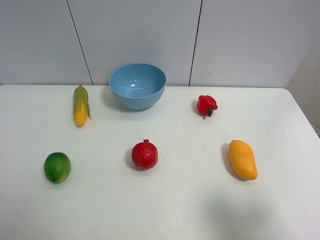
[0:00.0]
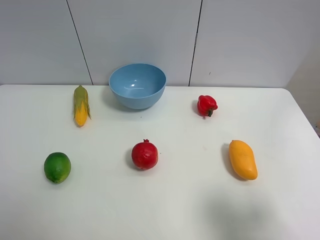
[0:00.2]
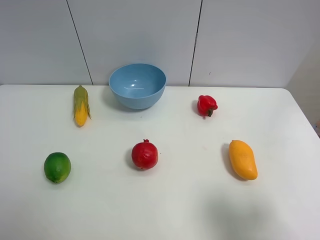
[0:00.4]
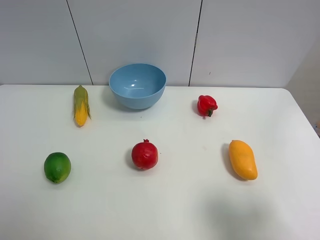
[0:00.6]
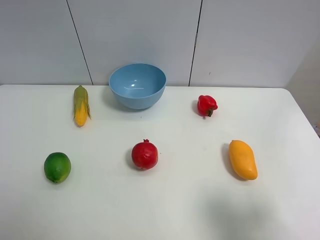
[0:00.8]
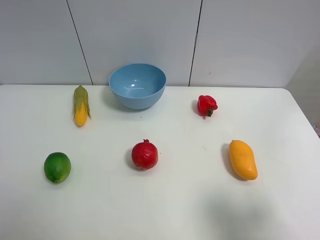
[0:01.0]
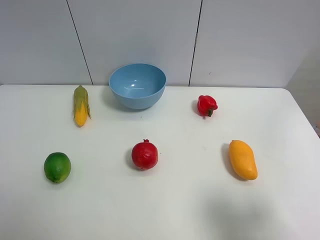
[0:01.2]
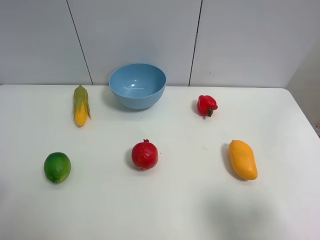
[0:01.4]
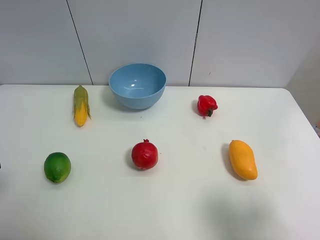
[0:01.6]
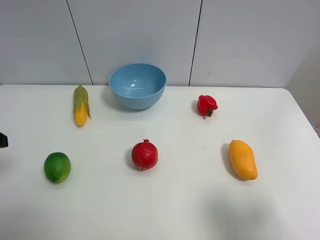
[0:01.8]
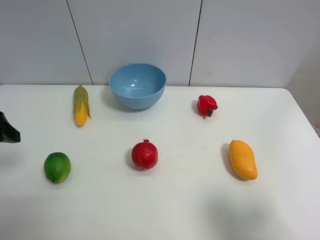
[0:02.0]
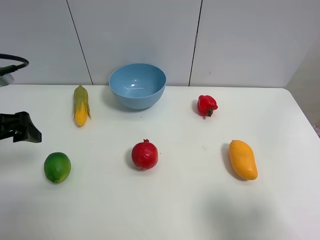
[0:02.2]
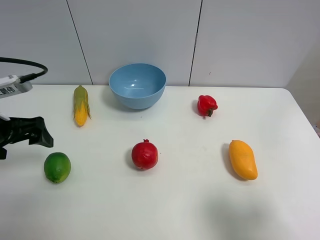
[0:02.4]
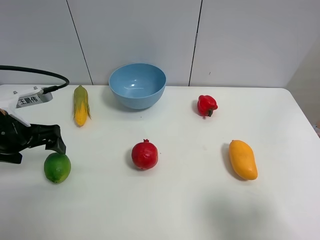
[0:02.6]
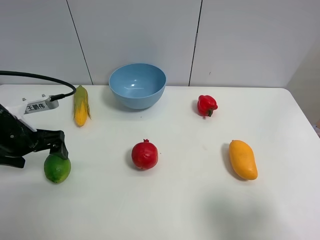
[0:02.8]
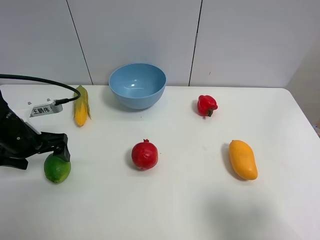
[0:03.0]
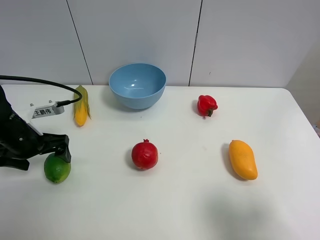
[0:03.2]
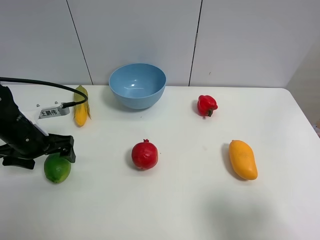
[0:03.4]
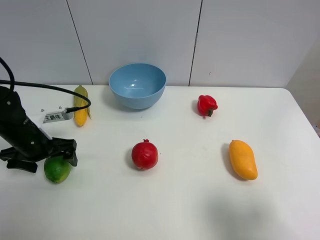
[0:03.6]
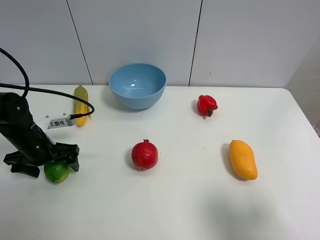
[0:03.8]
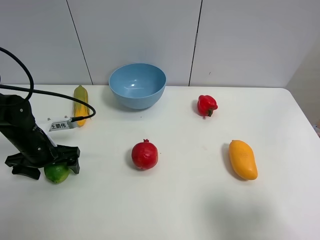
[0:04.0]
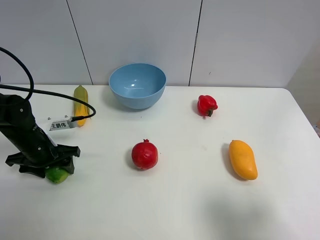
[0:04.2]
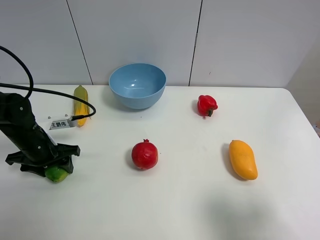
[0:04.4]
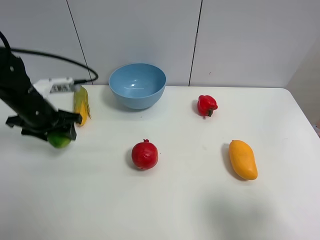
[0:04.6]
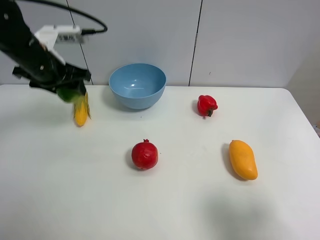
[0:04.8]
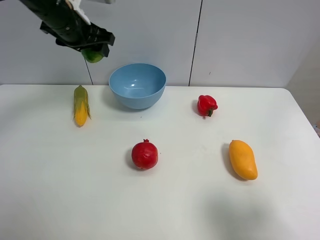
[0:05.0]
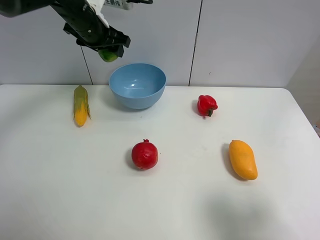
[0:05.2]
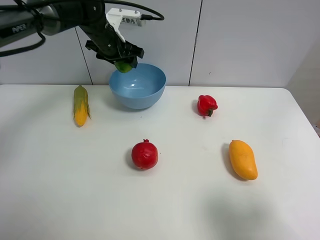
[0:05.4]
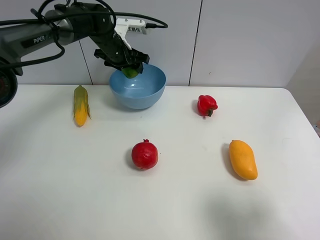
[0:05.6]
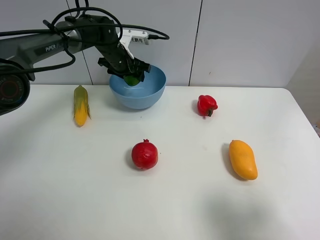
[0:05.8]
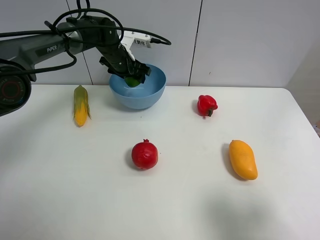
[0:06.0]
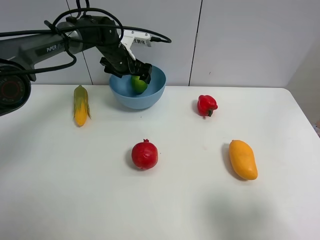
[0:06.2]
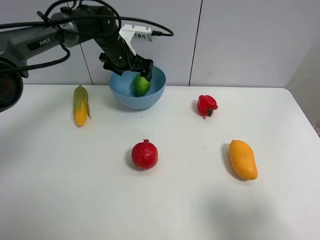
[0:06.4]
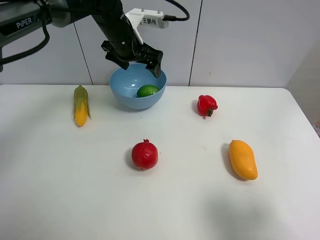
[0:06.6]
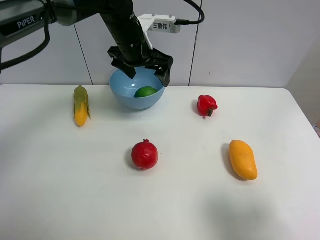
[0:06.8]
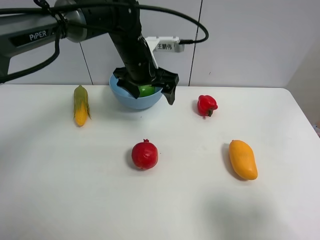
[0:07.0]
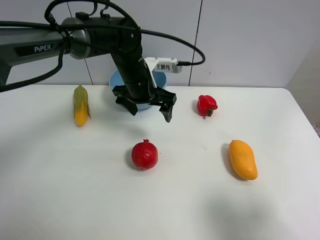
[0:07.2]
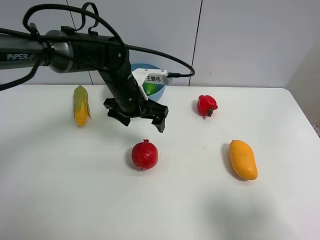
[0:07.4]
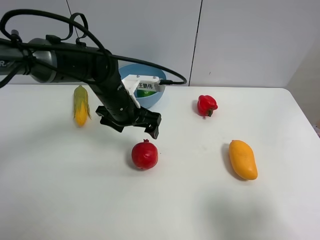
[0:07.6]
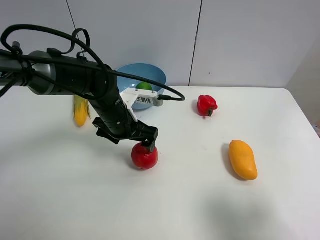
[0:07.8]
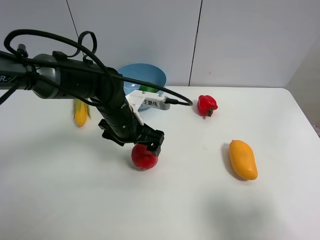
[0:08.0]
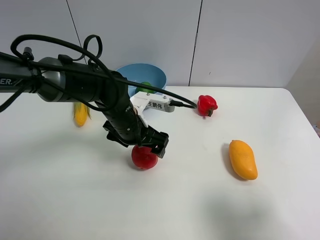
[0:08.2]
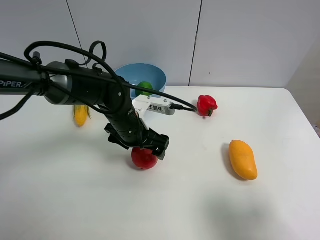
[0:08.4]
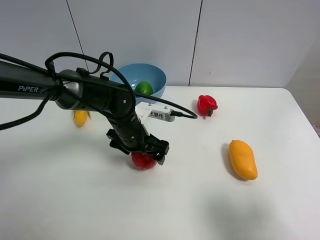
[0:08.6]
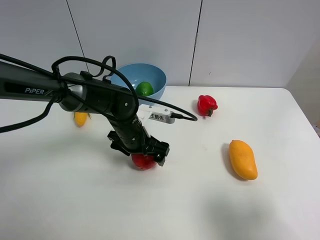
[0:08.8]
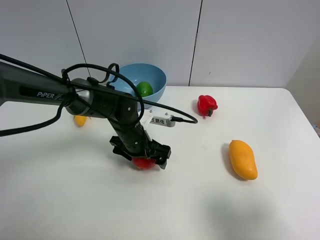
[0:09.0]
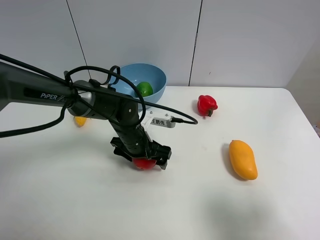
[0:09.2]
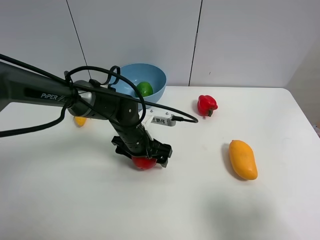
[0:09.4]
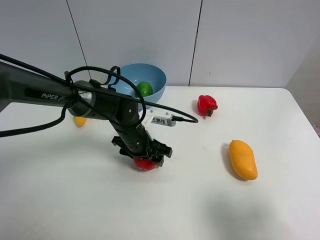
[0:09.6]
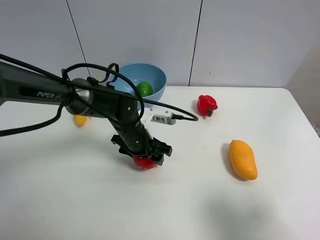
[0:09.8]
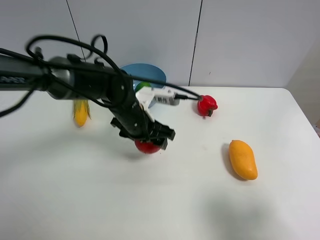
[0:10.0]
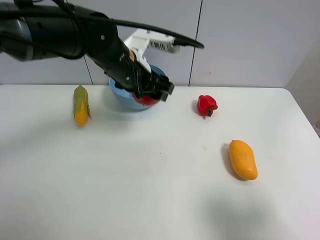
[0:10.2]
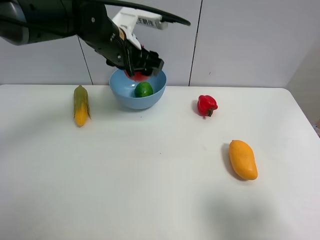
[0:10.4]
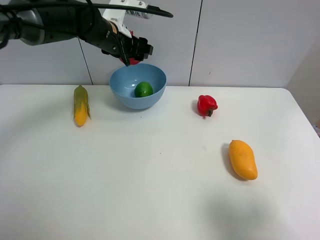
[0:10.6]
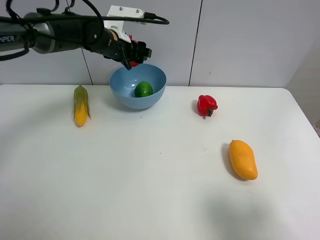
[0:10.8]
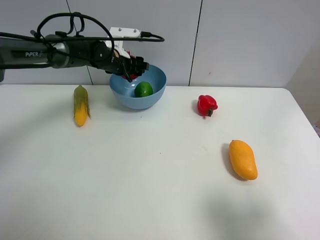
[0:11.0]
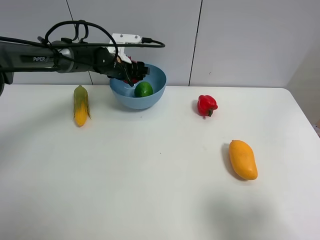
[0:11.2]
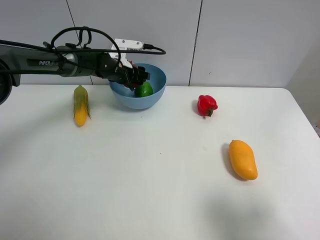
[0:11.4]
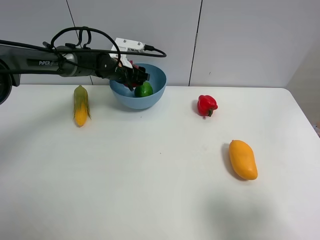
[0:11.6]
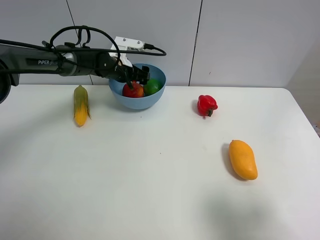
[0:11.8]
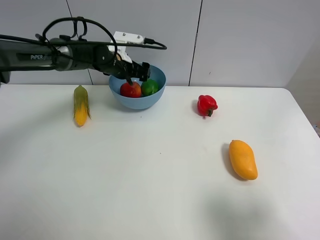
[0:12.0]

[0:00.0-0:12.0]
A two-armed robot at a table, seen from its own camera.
Task of the whole recording: Put the three fruits on the table into a bowl.
Step, 0:00.0 to 0:04.2: Grasp the green lemon with left gripper.
Step, 0:04.4 to 0:06.2: Place the green lemon in the blue bowl with left gripper.
Step, 0:06.4 to 0:09.6: Grasp the pomegranate with left gripper.
Step, 0:09.8 to 0:12.0: Place the pomegranate in the blue bowl with left gripper.
0:01.6 to 0:03.0: The left gripper travels forward and downward by about 20 cm.
0:03.0 to 0:04.4: The left gripper is displaced downward by approximately 5 cm, and closes its fingers.
0:04.4 to 0:06.0: The left gripper moves forward and to the right, approximately 30 cm.
0:06.0 to 0:07.6: The left gripper shifts some 20 cm backward, and opens its fingers.
0:07.6 to 0:09.0: The left gripper heads downward, covering some 10 cm.
0:09.0 to 0:10.4: The left gripper shifts approximately 20 cm upward and forward, and closes its fingers.
0:10.4 to 0:12.0: The left gripper travels downward and forward by approximately 10 cm, and opens its fingers.

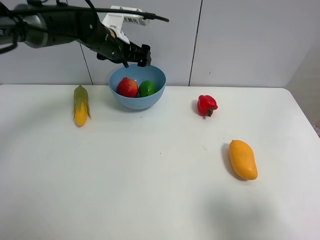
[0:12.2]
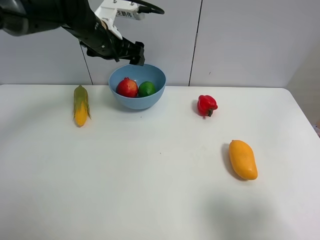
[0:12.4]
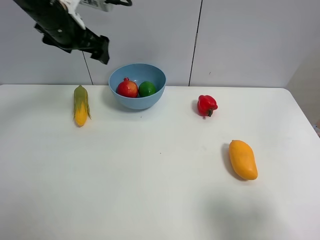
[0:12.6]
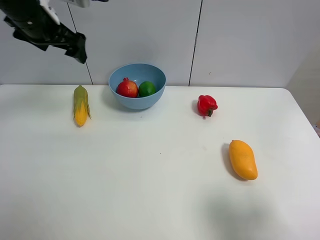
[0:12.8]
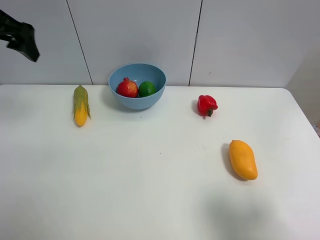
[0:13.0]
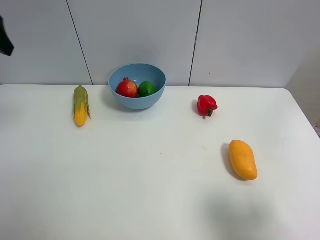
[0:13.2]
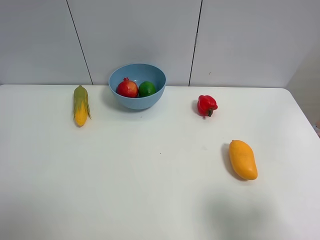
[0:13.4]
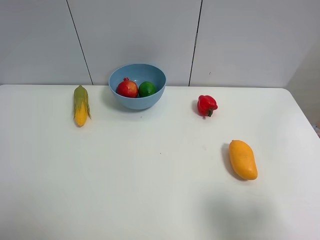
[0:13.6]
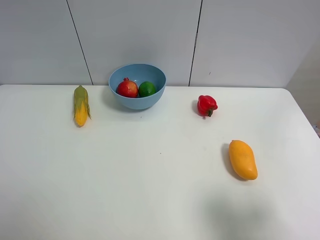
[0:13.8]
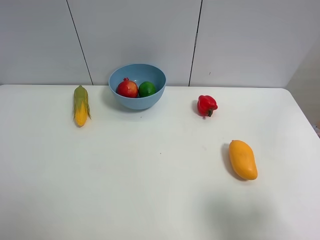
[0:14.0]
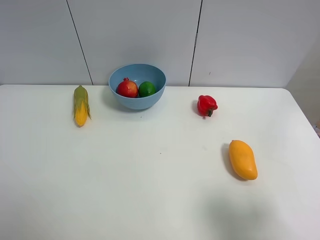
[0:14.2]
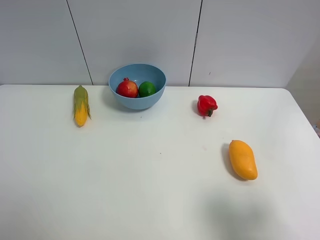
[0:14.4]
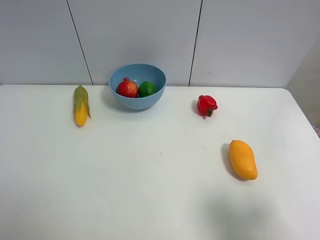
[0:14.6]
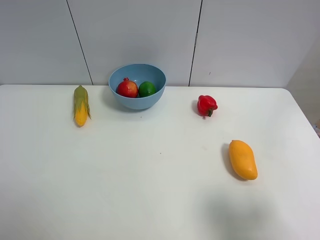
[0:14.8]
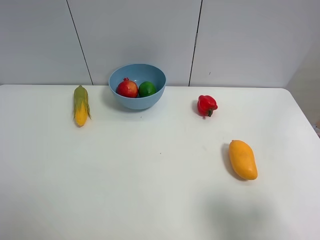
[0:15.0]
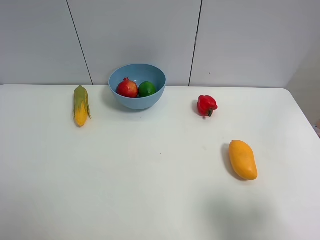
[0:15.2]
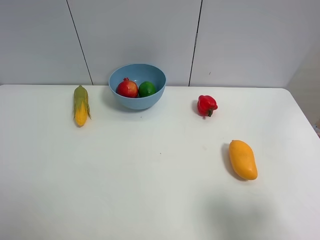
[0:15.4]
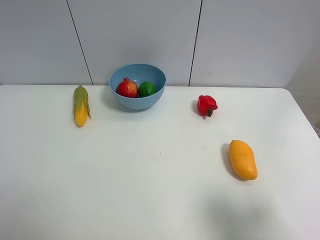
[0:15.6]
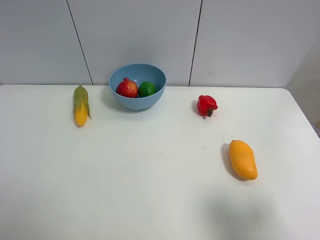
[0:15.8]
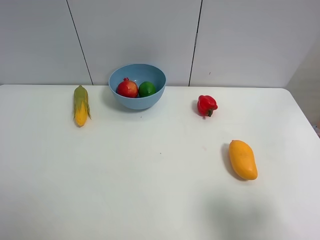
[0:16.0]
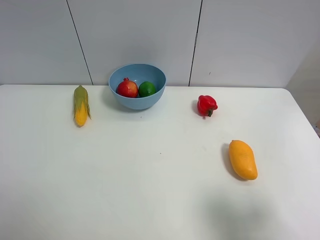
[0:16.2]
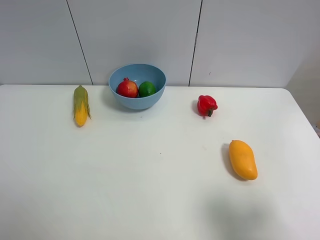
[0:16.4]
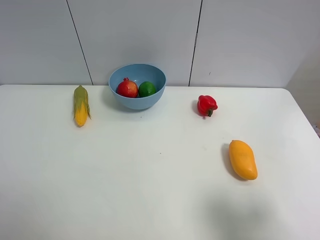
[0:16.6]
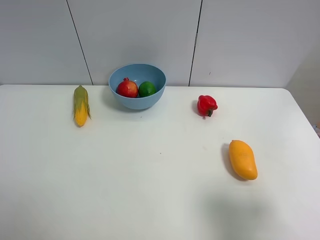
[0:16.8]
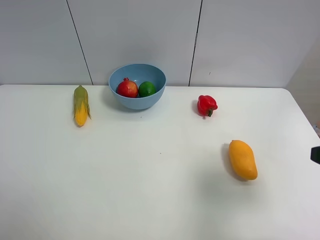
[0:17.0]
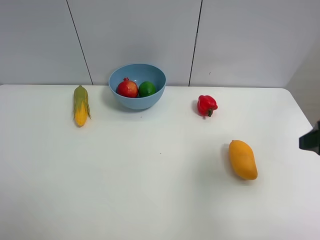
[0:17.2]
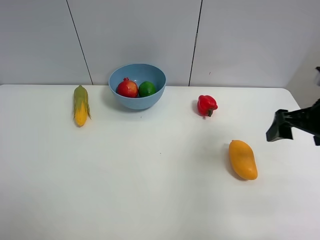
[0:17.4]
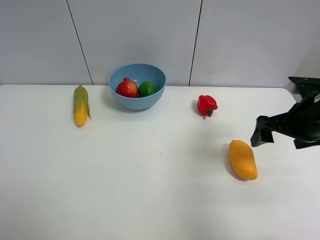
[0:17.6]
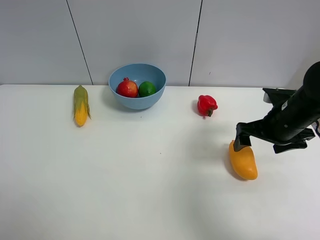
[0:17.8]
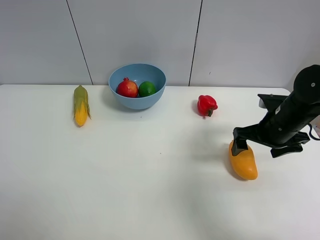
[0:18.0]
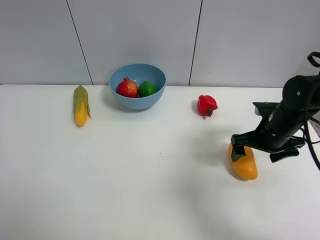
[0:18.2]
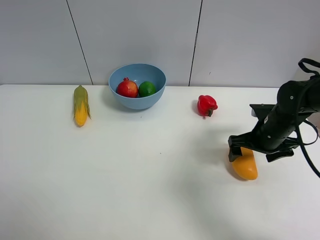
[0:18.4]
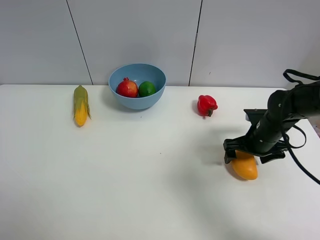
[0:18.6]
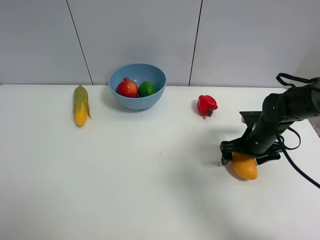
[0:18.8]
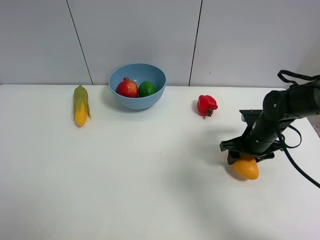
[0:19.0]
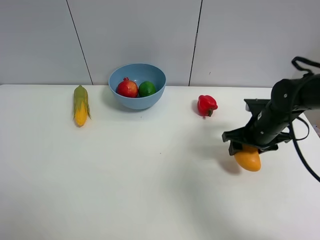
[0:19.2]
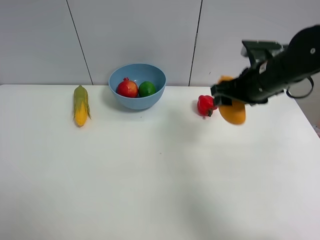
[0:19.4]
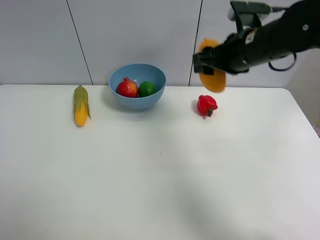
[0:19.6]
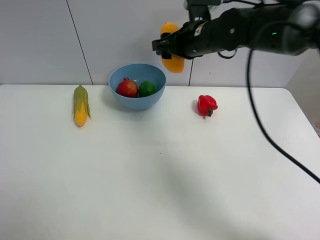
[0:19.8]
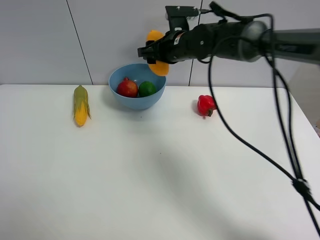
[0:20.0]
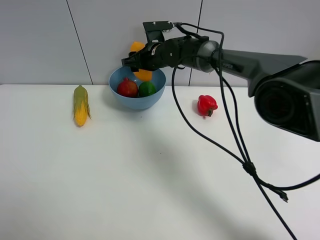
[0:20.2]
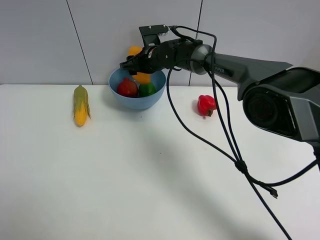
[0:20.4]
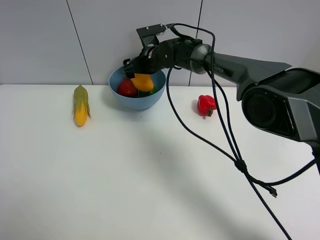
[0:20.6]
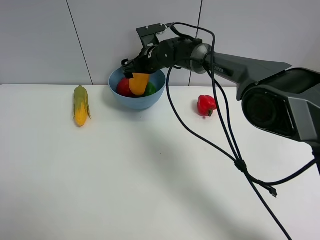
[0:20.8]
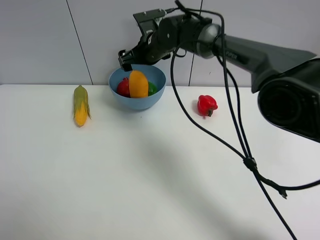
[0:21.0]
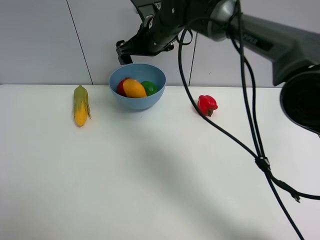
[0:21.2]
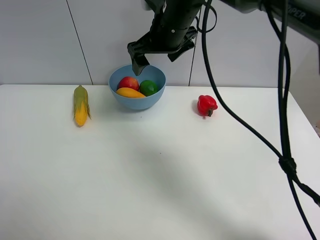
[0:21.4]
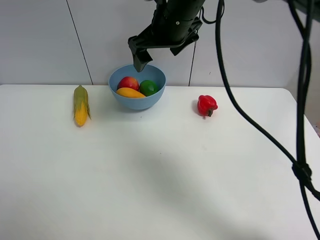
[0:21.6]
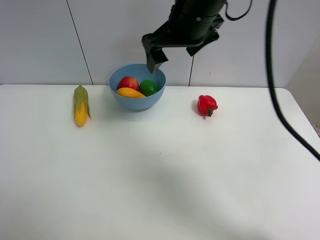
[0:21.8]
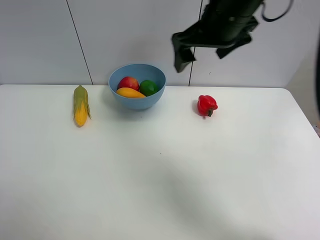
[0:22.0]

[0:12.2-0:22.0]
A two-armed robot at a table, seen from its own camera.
Task of the whole recording: Put the three fruits on the table into a bowl.
Step, 0:12.2 to 0:18.8: Grasp the mango with right gripper.
Step, 0:19.0 to 0:21.0: Place the mango in the blue bowl with right gripper.
0:12.2 to 0:13.6: The left gripper goes about 40 cm backward and to the left.
0:15.0 to 0:16.4: Both grippers stay about where they are.
0:16.4 to 0:17.8: The right gripper travels forward by approximately 25 cm.
0:17.8 to 0:19.2: The right gripper moves roughly 10 cm downward and comes back, and closes its fingers.
0:19.2 to 0:20.6: The right gripper shifts some 30 cm to the left and forward, and opens up.
0:20.6 to 0:22.0: The right gripper travels upward, backward and to the right by some 30 cm.
